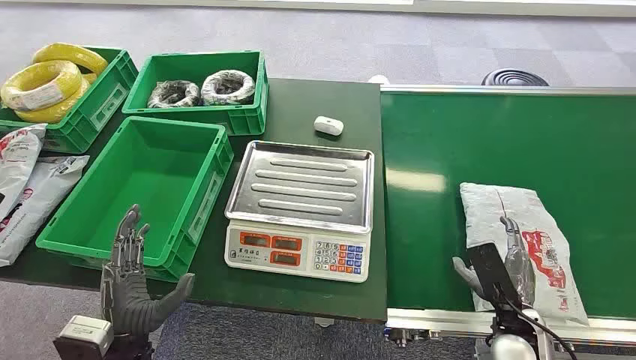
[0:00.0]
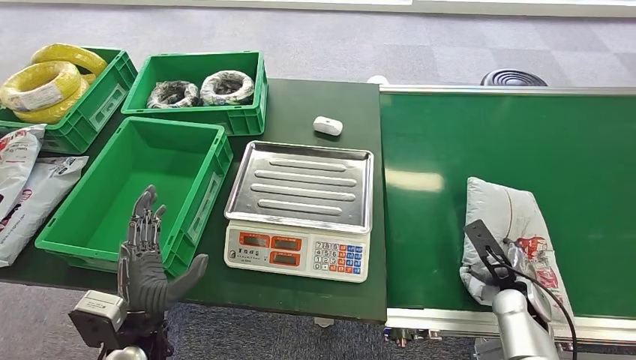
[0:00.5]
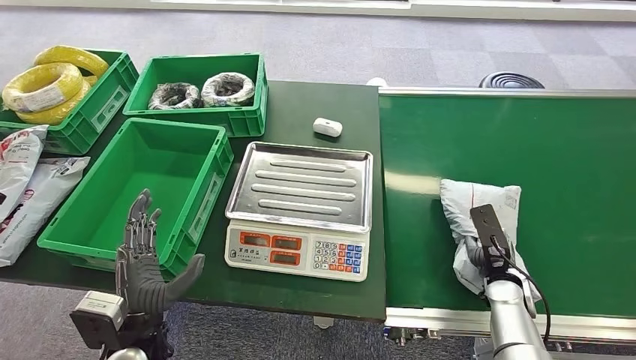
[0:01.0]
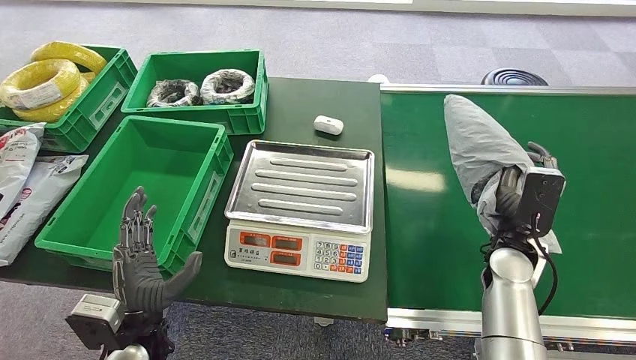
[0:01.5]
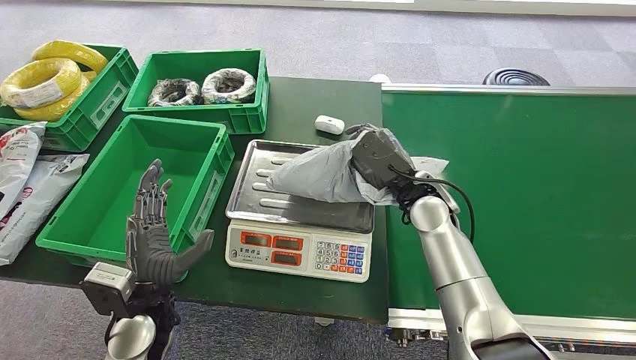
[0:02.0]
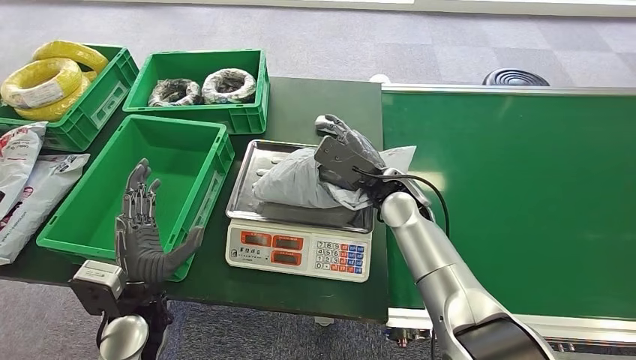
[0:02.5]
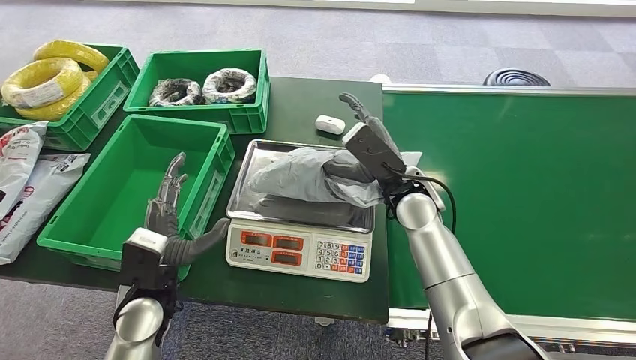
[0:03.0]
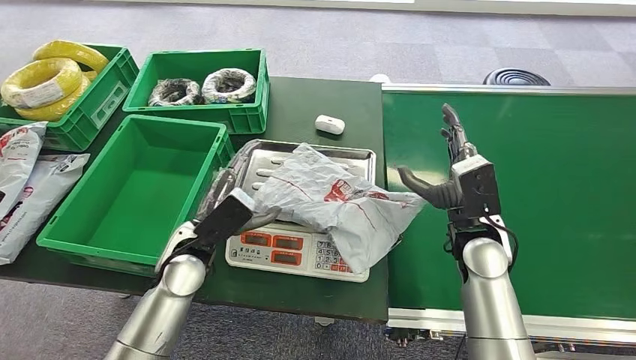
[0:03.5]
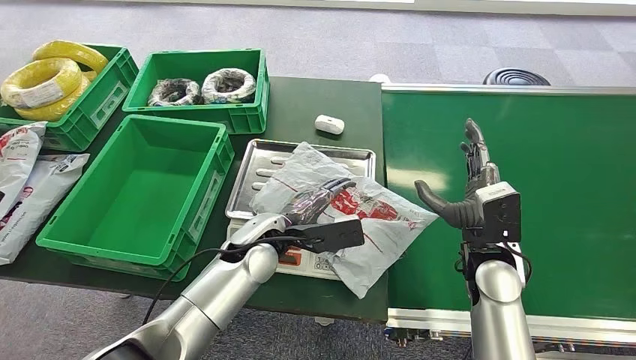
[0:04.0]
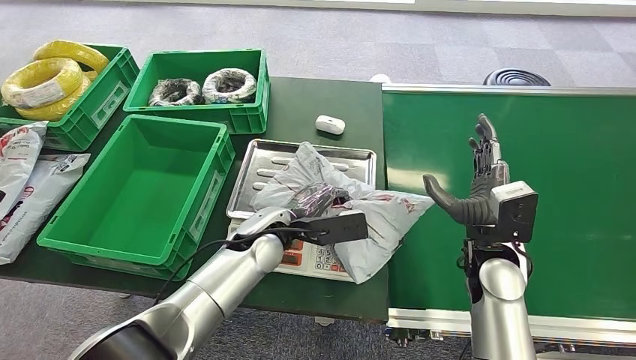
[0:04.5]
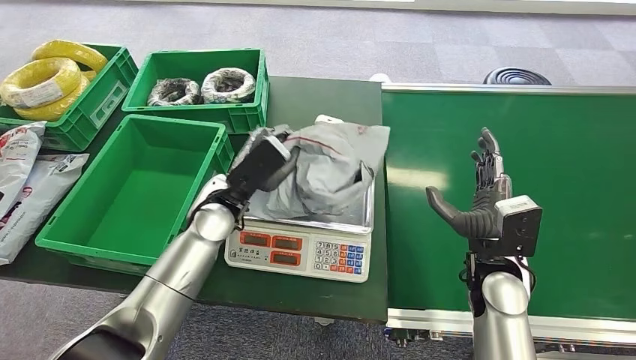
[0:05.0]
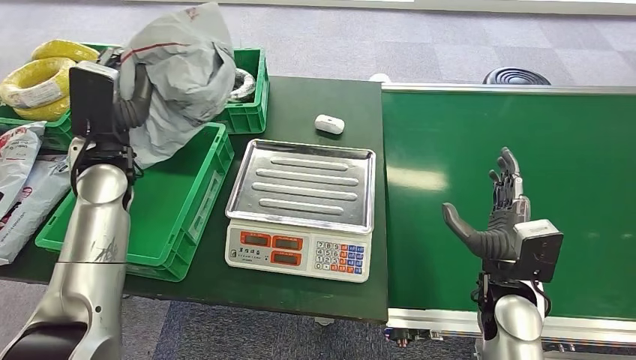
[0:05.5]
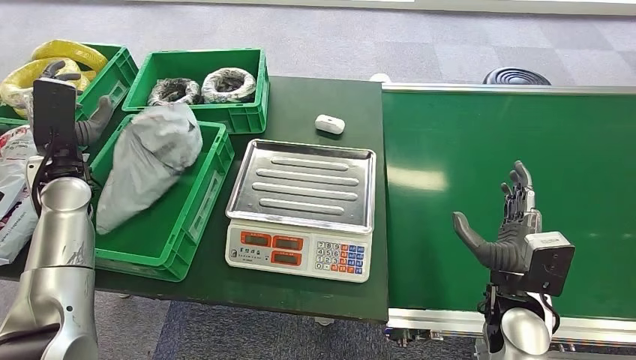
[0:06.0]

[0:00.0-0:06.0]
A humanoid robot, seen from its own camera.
Step, 0:00.0 to 0:01.5: Pick up the package from the conveyor belt.
Step, 0:02.0 to 0:03.5: Place the package onto the inbound machine.
Step, 0:04.0 to 0:05.0: Pick up the package from the inbound machine.
Step, 0:05.5 to 0:06.0: Place the package into the parcel locker.

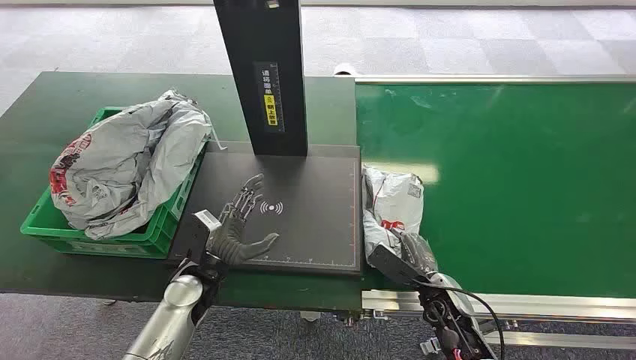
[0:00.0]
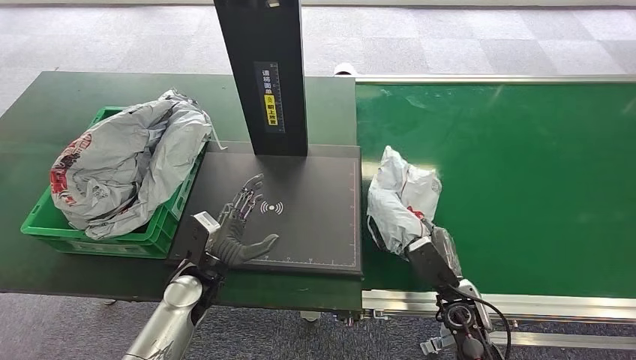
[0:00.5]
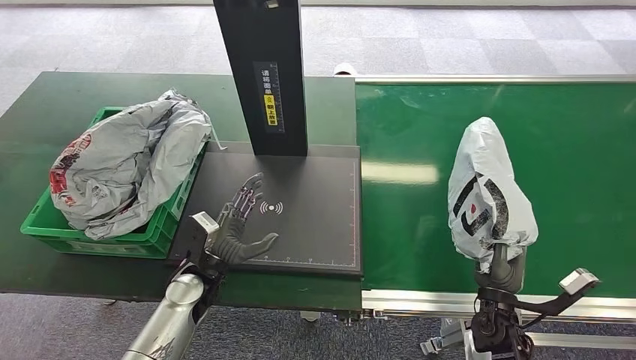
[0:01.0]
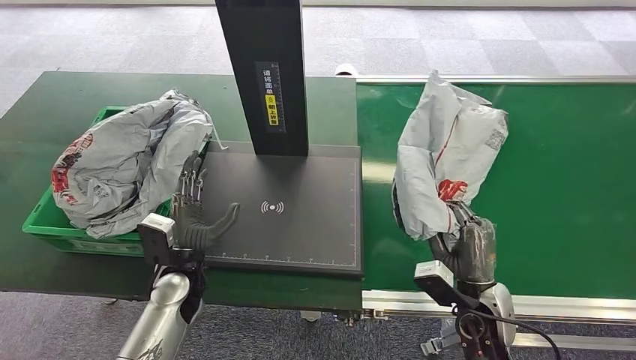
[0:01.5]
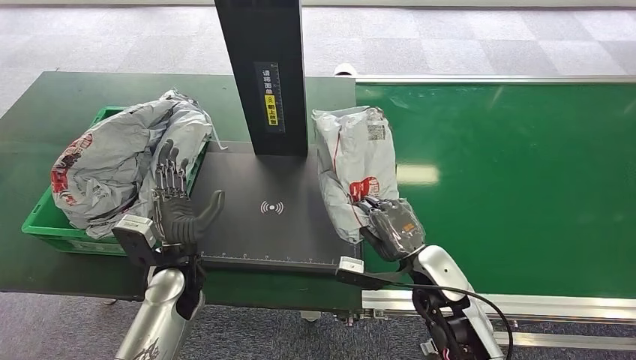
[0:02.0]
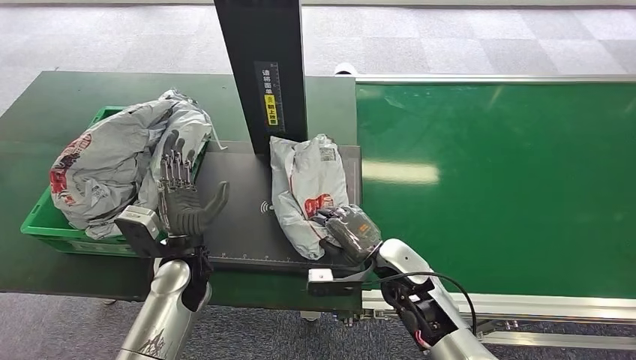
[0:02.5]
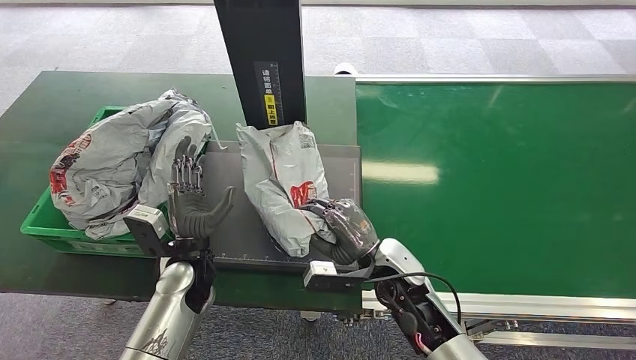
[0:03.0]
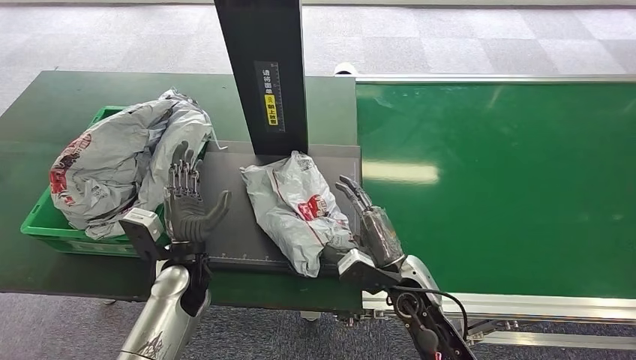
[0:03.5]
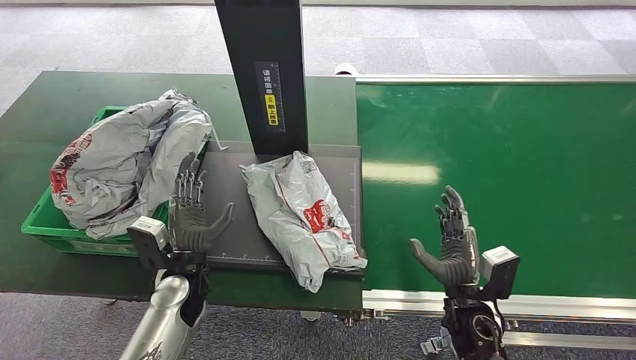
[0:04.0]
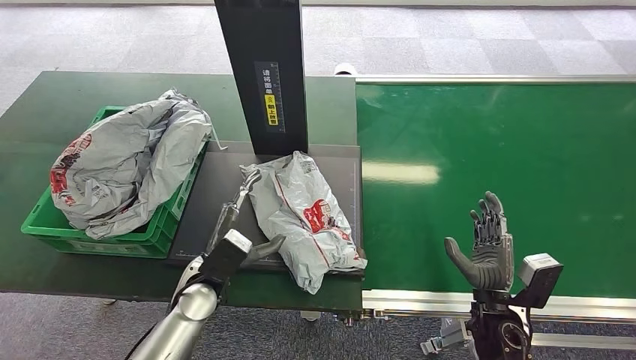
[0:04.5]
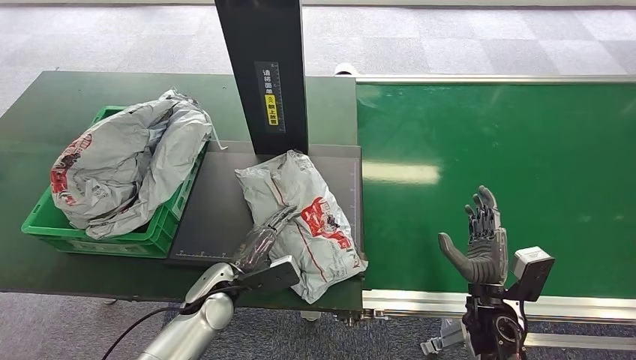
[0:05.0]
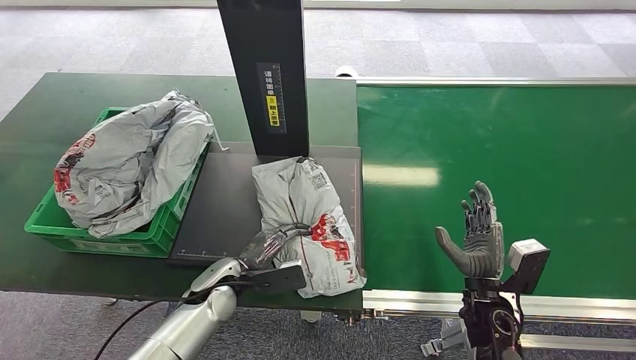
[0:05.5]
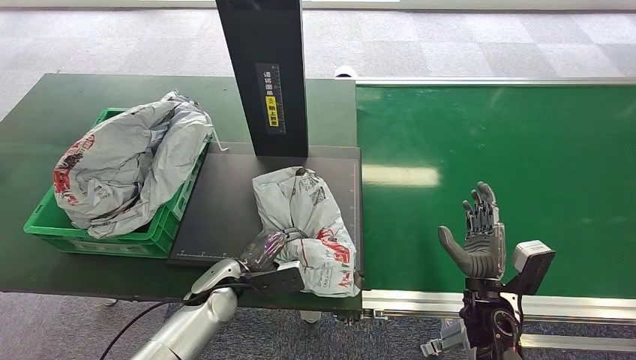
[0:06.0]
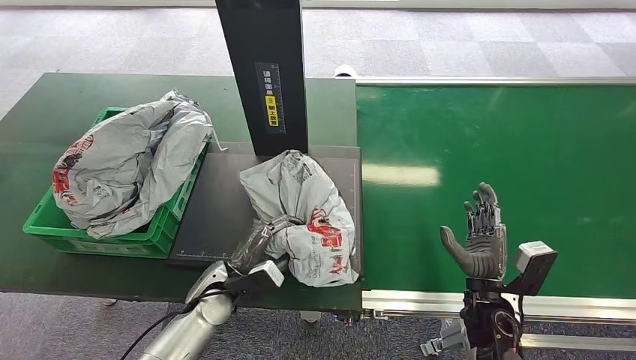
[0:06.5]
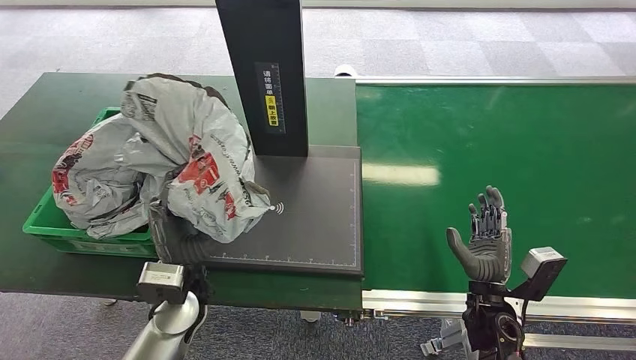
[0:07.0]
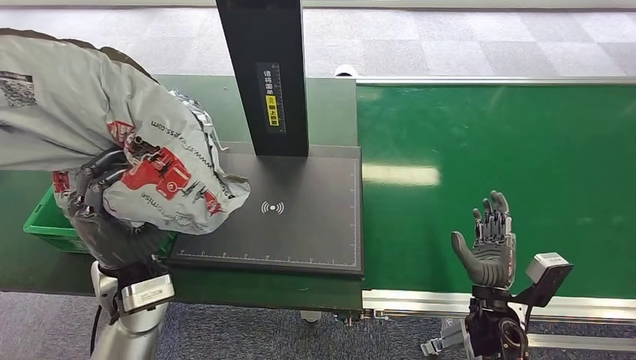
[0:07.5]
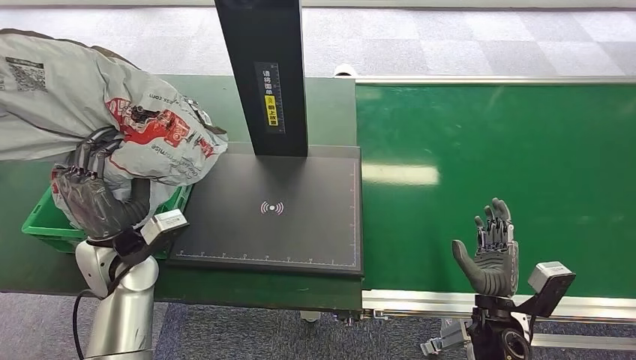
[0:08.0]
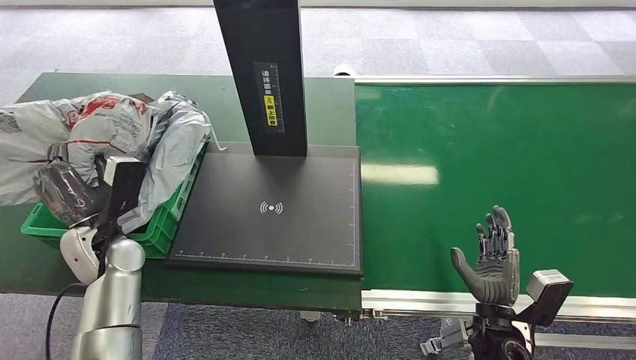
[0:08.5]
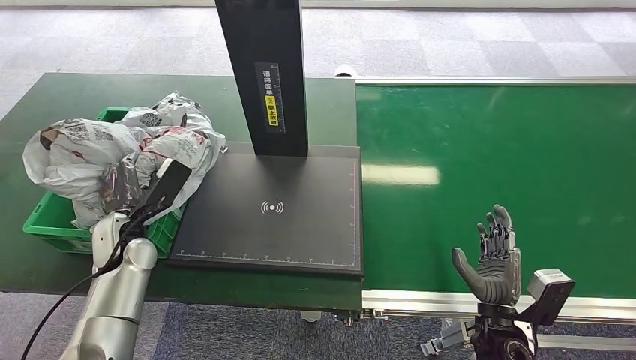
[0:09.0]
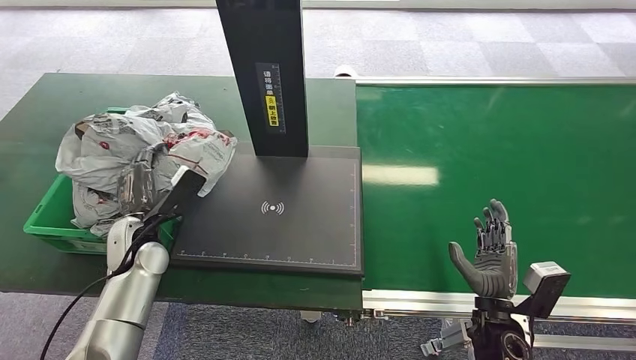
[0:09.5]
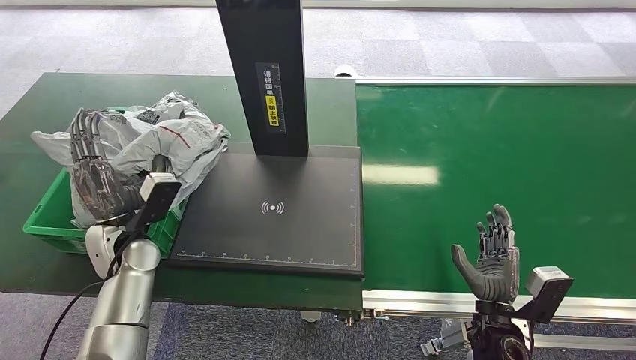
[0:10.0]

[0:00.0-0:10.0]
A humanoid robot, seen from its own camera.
Step, 0:00.0 to 0:01.0: Pick up the package from the conveyor belt.
Step, 0:01.5 to 0:04.5: Place the package onto the inbound machine.
Step, 0:05.0 to 0:06.5: Pick up the package from the inbound machine.
Step, 0:07.0 to 0:10.0: Place the package into the parcel locker.
0:02.0 to 0:04.0: The right hand ends up roughly 10 cm from where it was.
0:04.0 to 0:06.0: The left hand shifts by some 5 cm.
